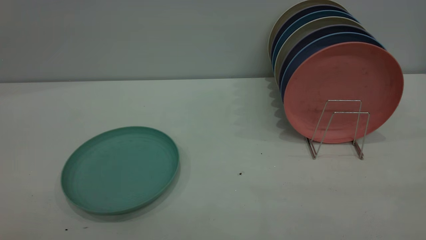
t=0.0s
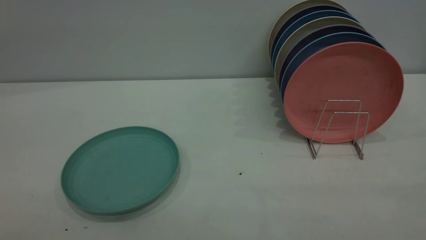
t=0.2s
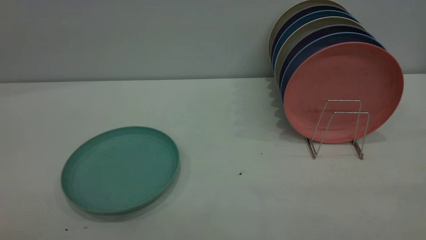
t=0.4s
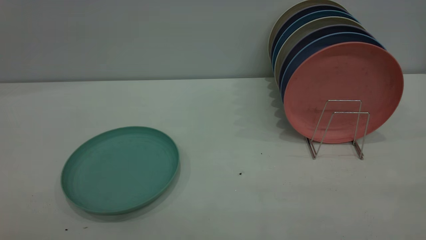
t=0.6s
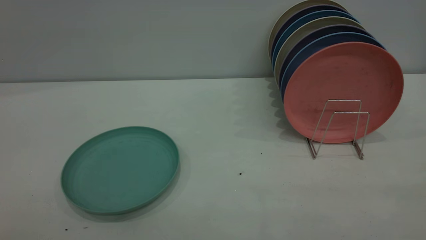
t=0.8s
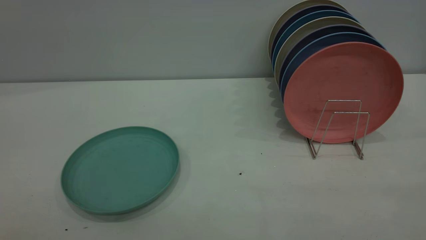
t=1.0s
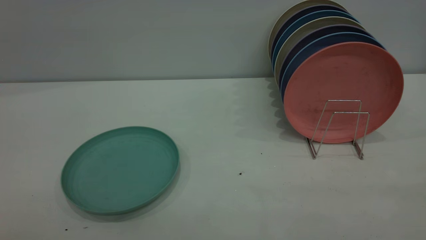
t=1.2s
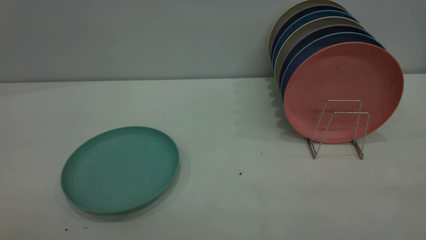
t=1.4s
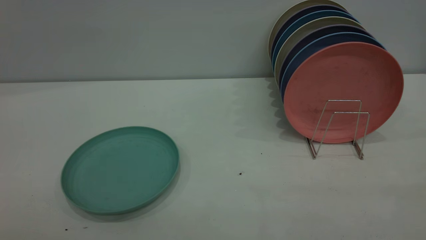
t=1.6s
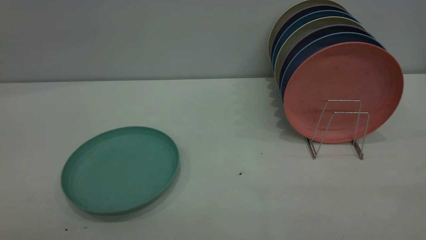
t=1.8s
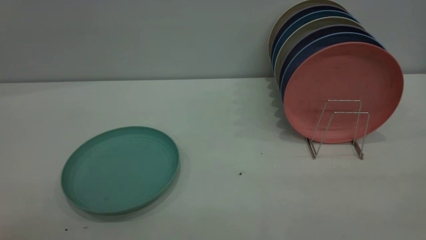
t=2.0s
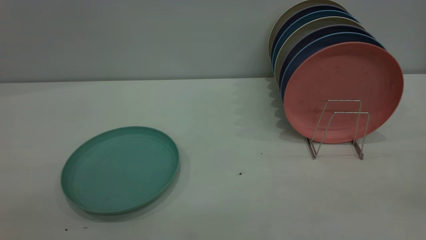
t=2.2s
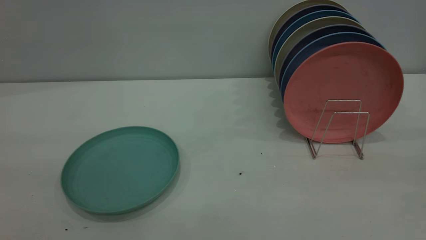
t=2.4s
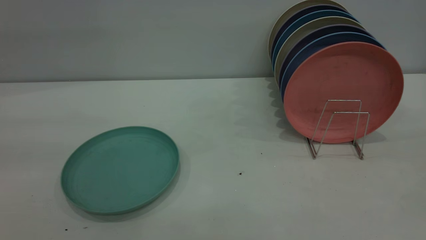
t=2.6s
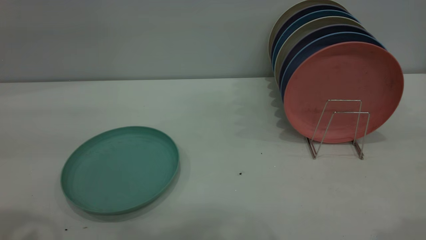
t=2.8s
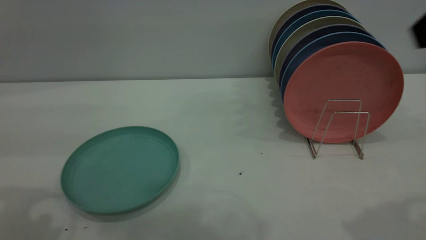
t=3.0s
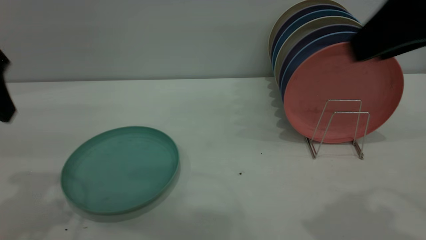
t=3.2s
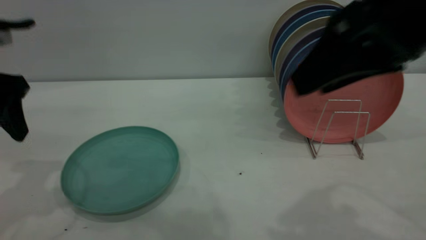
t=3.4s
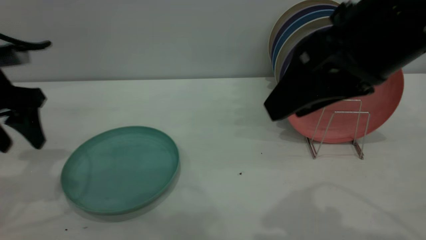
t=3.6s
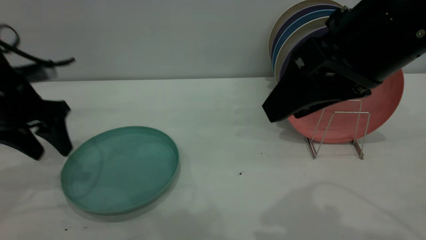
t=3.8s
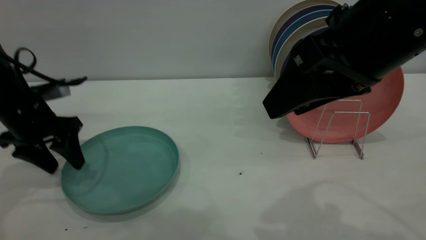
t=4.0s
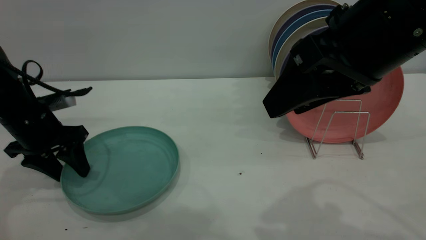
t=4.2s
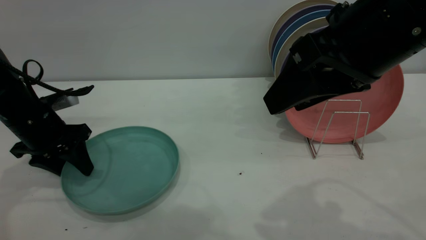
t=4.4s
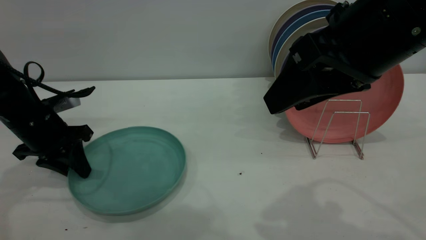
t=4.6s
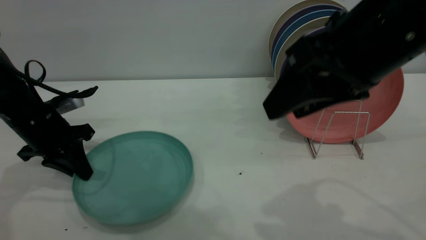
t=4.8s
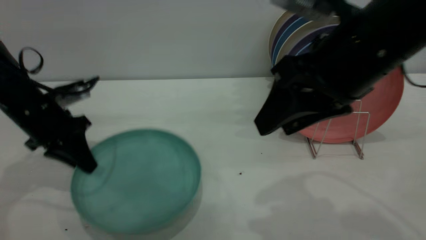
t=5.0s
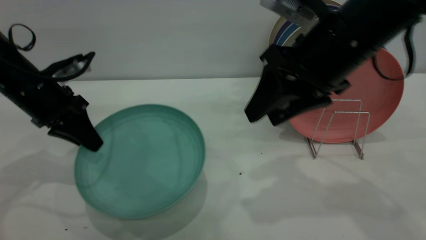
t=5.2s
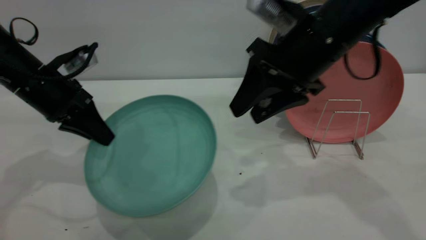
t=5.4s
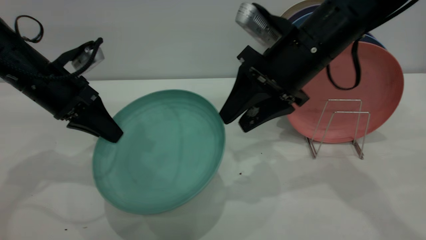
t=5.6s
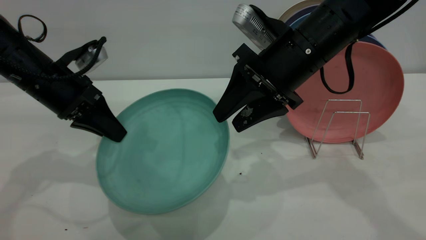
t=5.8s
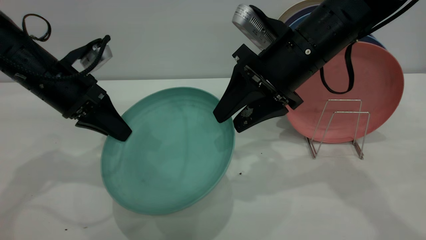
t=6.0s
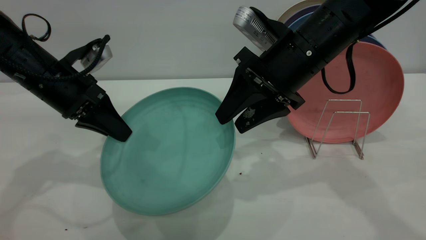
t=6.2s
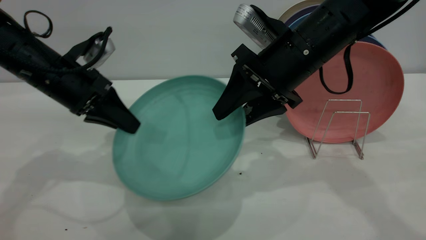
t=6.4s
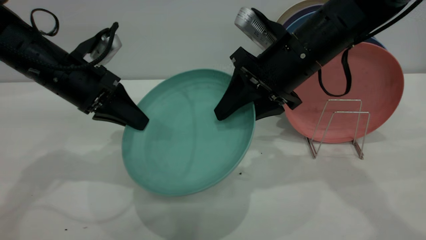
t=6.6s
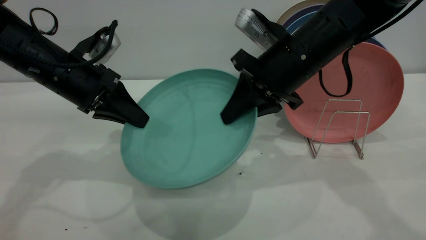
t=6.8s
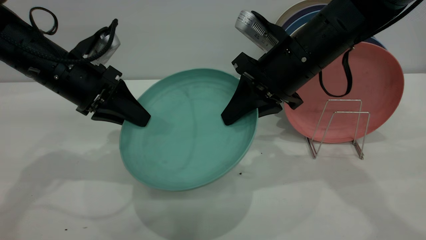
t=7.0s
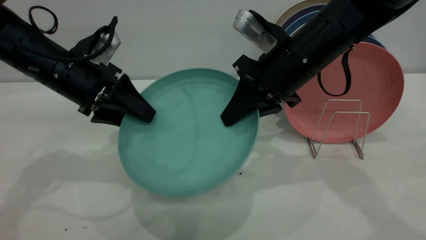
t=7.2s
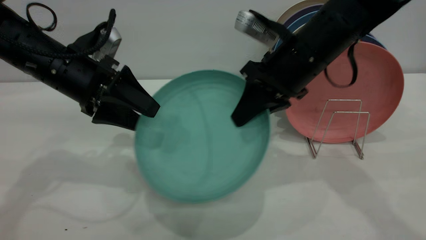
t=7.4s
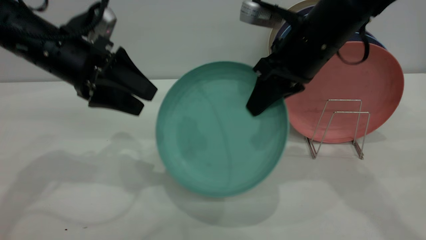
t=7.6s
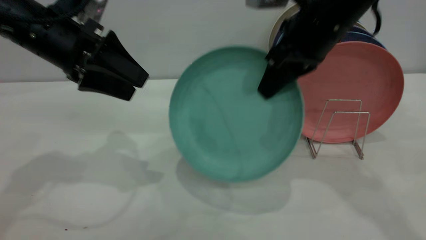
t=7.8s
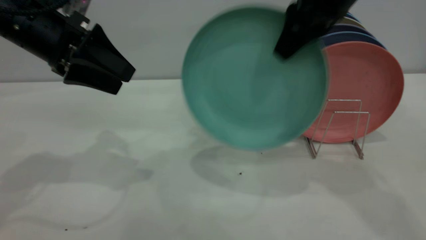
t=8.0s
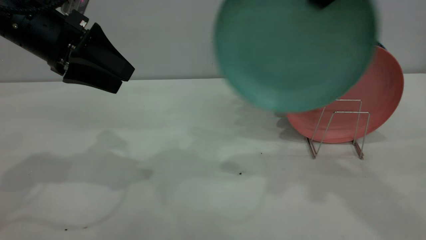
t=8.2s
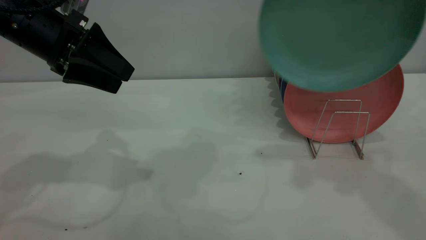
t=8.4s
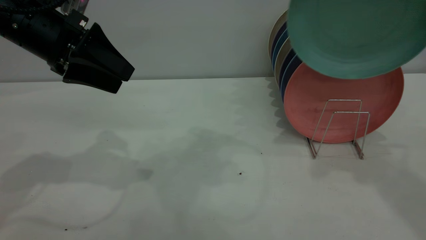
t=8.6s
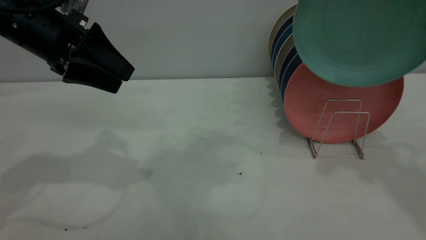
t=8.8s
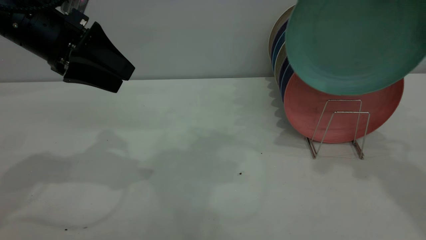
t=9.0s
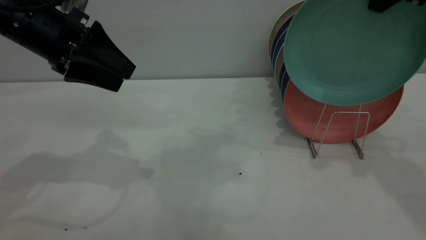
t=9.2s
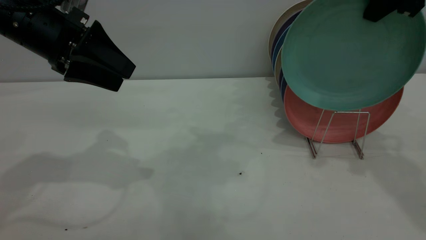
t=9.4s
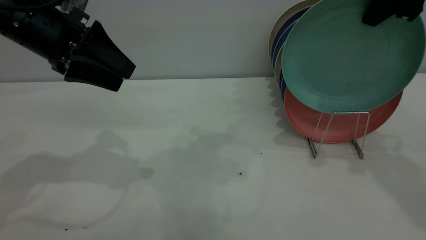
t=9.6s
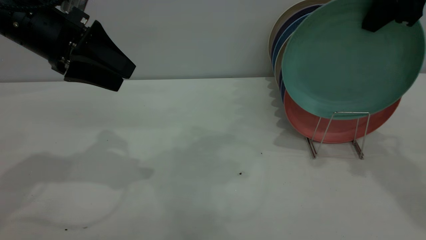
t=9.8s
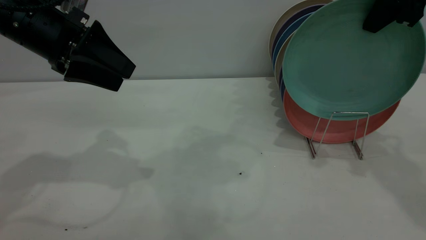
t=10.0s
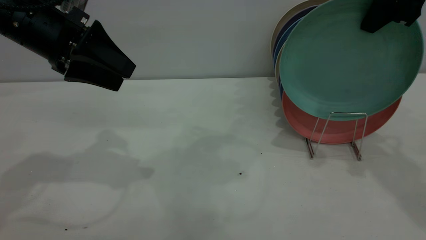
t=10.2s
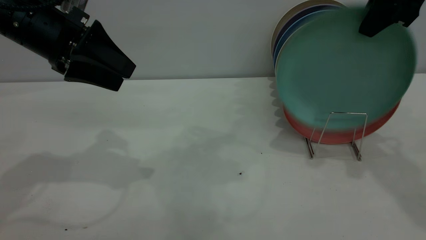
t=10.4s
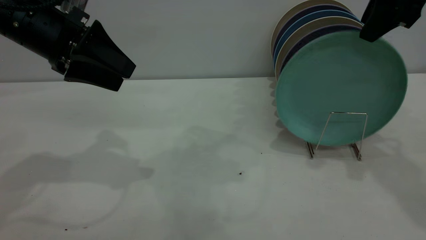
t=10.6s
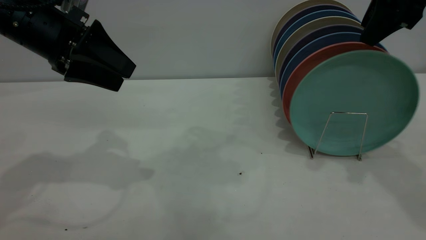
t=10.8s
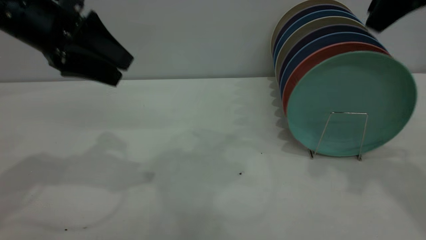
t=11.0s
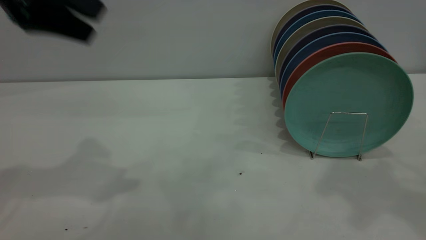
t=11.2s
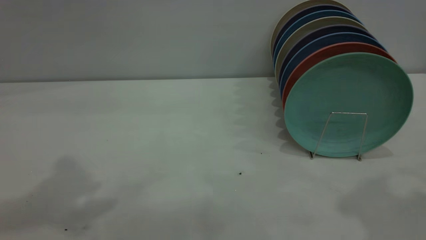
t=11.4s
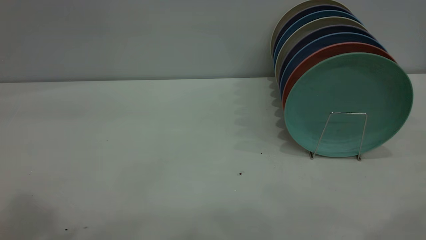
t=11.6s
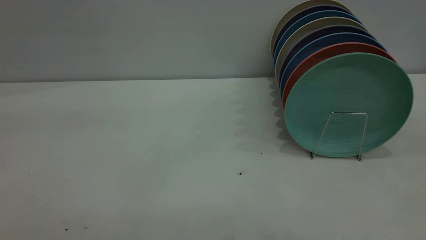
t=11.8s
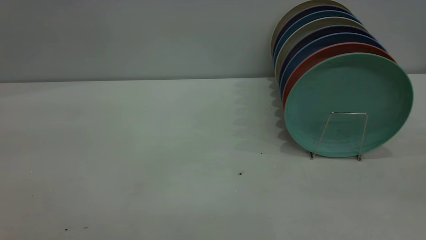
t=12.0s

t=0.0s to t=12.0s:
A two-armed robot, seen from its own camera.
Task of the whole recording: the left gripper grasp the green plate, the left gripper pass the green plate to the right gripper, and the right gripper place the green plate on the plate rack.
Step, t=0.0s to t=5.0s: Pick up the plate with the left gripper.
Step, t=5.2s to t=7.8s: Pass the plate from the left gripper to the right gripper.
Step, t=8.2s to t=11.0s: Place the plate on the shelf.
t=0.0s to t=1.6s: The two grippers keep their place.
t=3.0s to t=4.4s: The right gripper heads to the left and downward, covering approximately 10 cm, while the left gripper shifts about 25 cm downward and forward.
t=4.4s to t=6.0s: The left gripper shifts some 10 cm upward and to the right, and closes up. Meanwhile the right gripper moves forward and downward, roughly 15 cm.
t=6.0s to t=7.6s: The right gripper closes its fingers. The left gripper shifts by about 5 cm, and opens up.
t=7.6s to t=9.0s: The right gripper moves upward and to the right, roughly 20 cm.
t=9.0s to t=10.4s: The right gripper opens.
t=10.4s to t=12.0s: The right gripper goes roughly 30 cm backward. Meanwhile the left gripper moves backward and upward, roughly 35 cm.
